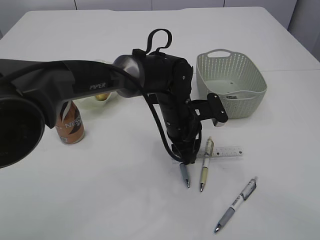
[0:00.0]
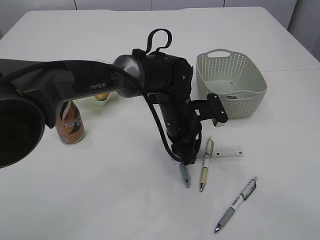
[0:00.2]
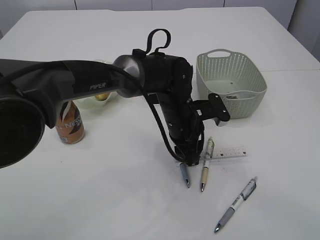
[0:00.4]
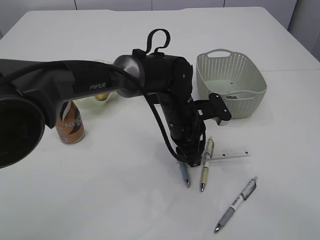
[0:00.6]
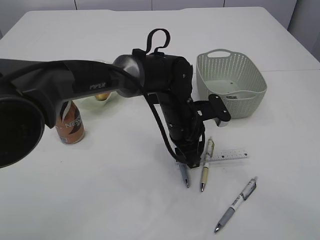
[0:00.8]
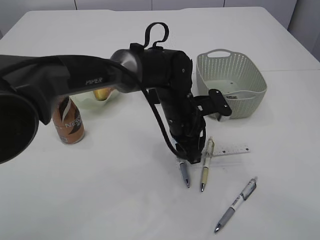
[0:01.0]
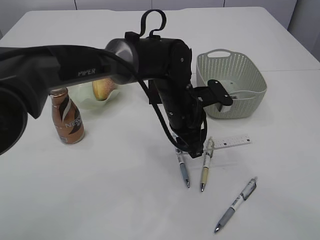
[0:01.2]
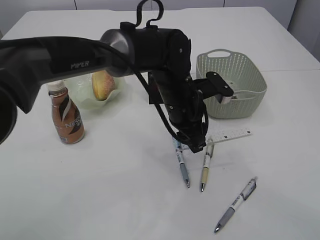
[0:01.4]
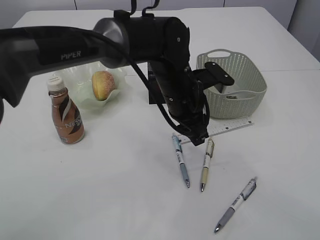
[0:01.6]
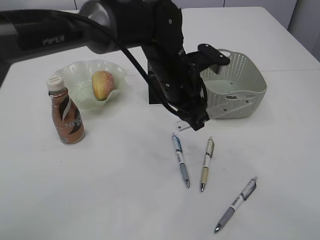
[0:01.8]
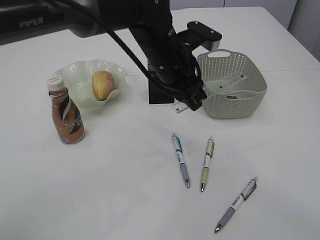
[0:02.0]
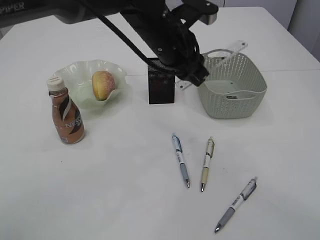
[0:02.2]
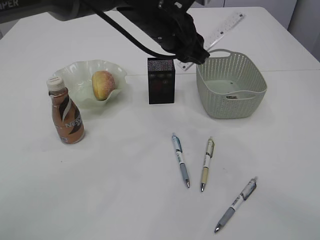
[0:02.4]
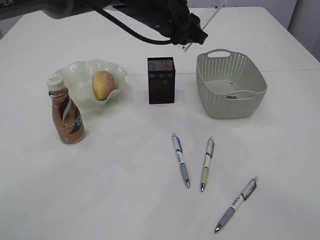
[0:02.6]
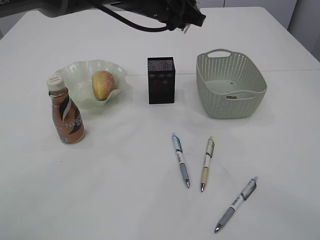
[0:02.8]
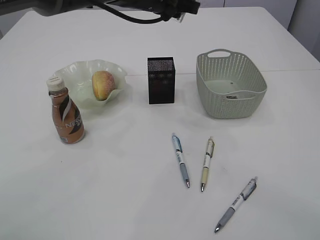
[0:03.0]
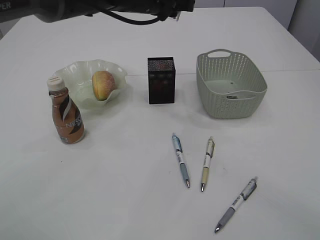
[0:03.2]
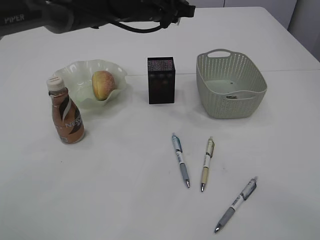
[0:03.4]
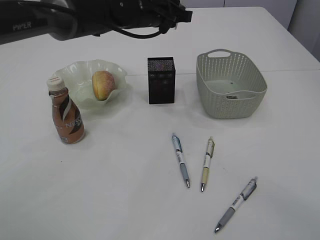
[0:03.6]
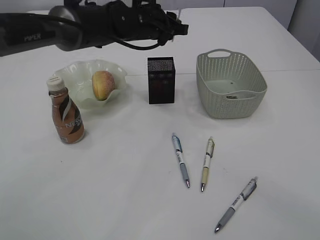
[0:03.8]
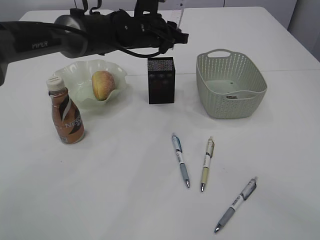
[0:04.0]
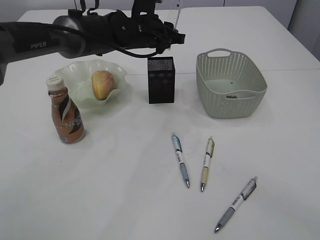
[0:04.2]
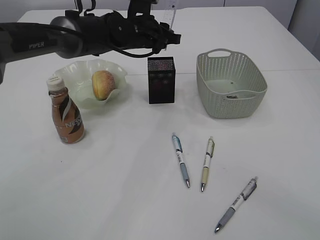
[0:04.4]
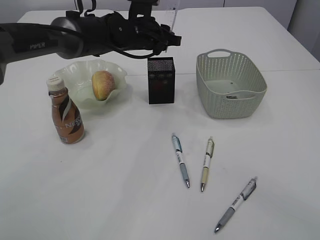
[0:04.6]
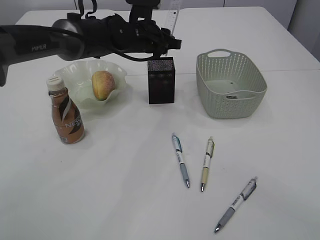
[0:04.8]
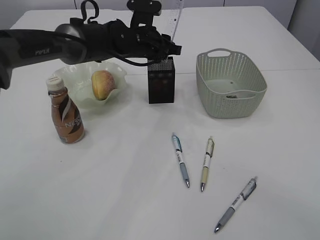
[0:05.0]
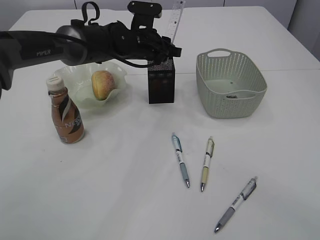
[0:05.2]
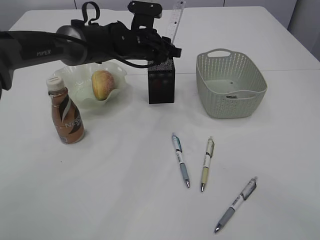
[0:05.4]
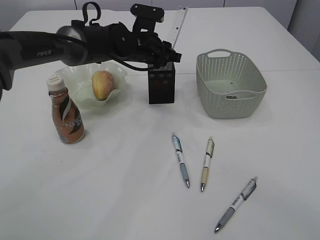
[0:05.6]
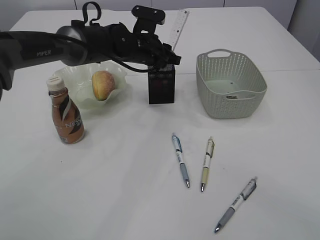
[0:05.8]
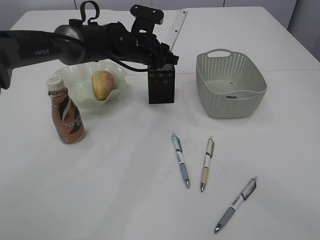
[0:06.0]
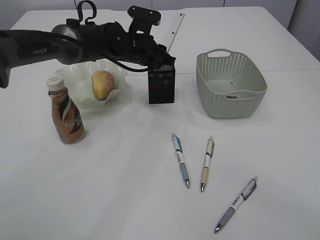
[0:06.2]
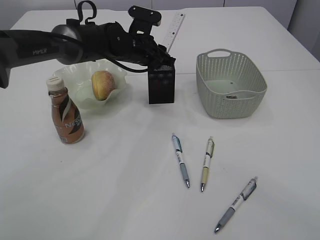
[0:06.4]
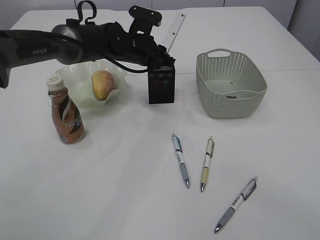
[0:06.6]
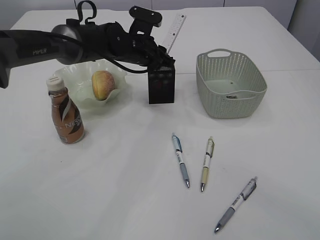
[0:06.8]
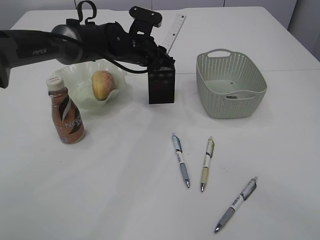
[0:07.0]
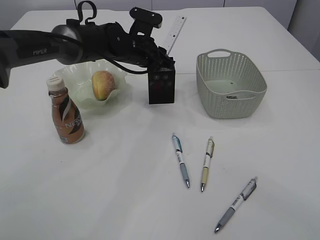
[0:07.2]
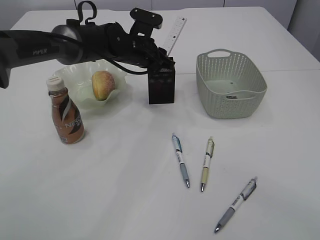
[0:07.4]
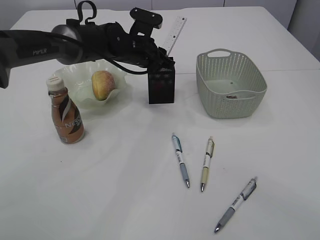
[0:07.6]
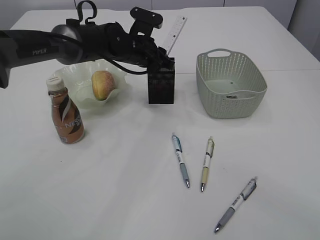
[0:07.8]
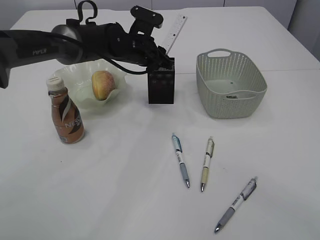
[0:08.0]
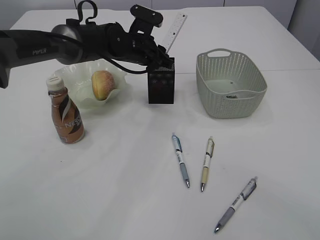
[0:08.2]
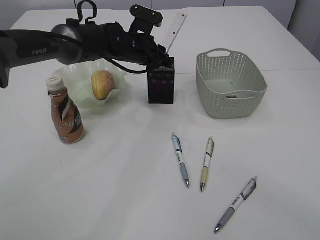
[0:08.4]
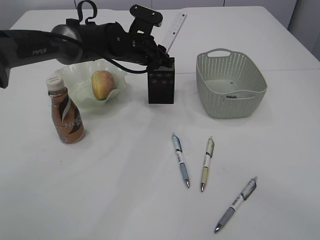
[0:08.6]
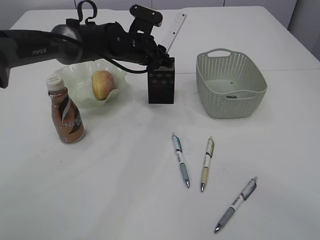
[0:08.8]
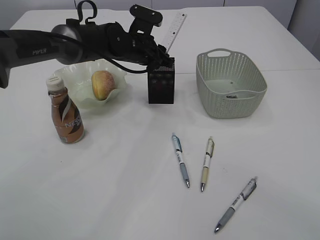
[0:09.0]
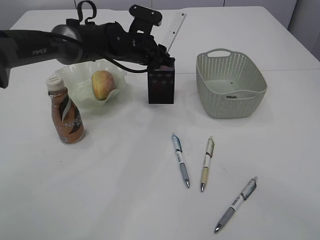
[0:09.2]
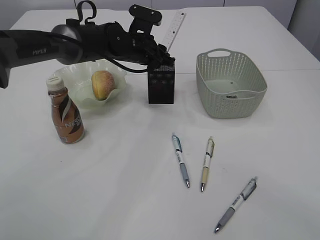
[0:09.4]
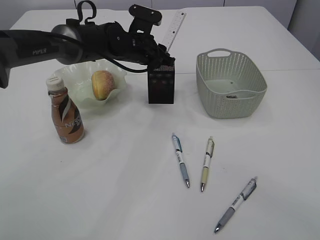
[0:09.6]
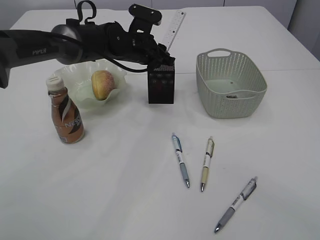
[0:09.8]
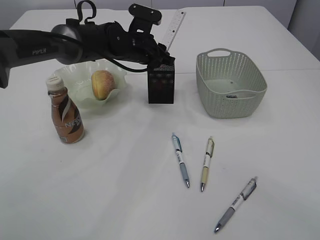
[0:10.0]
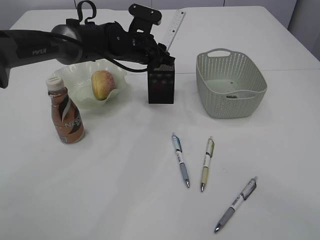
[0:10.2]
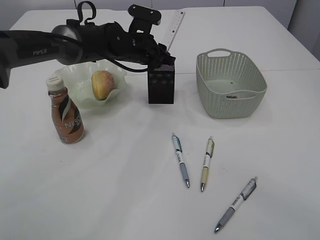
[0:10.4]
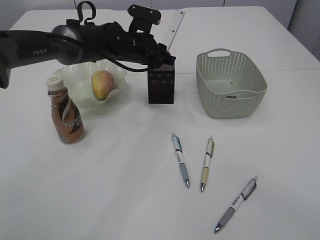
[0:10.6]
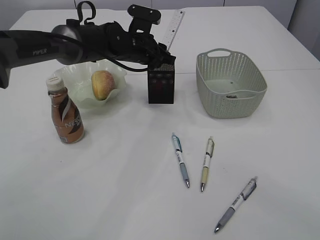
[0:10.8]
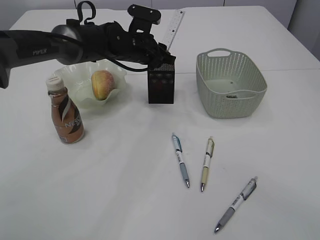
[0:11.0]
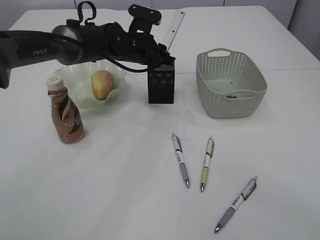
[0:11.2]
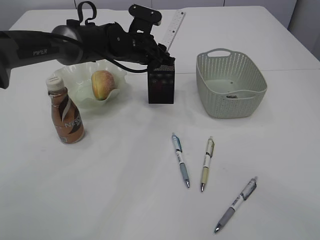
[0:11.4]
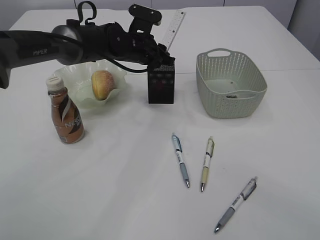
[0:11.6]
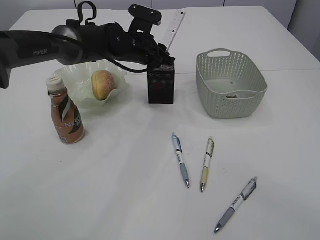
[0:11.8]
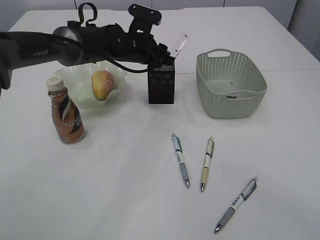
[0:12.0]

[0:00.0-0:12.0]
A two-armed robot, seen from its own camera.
0:00.0 to 0:01.6: The left gripper heads upward, covering some 5 cm.
0:01.6 to 0:03.0: The left gripper goes roughly 15 cm upward, forward and to the left.
0:03.0 to 0:04.4: The left gripper is displaced downward and forward by some 10 cm.
0:04.4 to 0:06.0: The grippers move only a little.
0:06.0 to 0:07.6: Both grippers stay put.
0:07.6 to 0:12.0: Both grippers stay put.

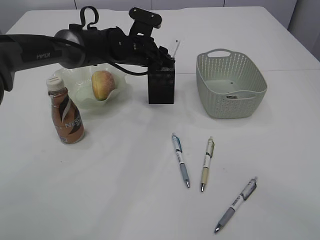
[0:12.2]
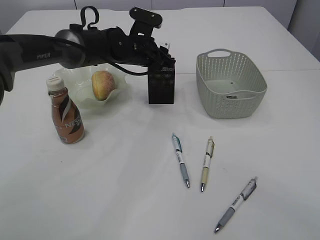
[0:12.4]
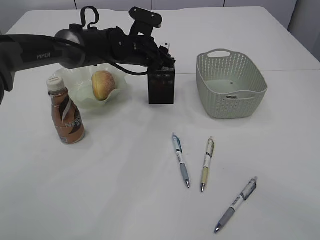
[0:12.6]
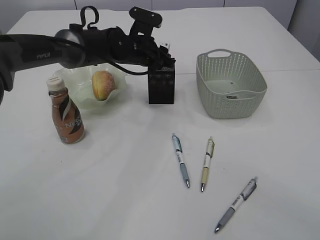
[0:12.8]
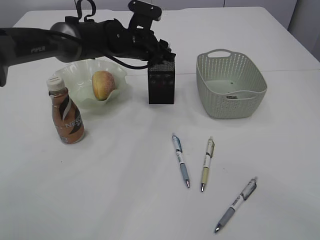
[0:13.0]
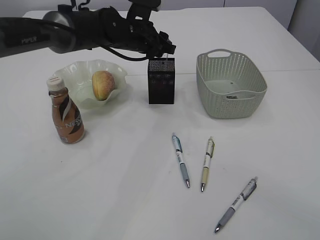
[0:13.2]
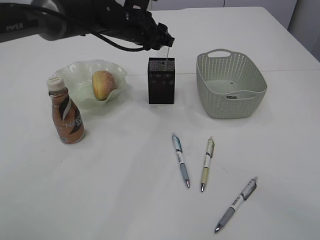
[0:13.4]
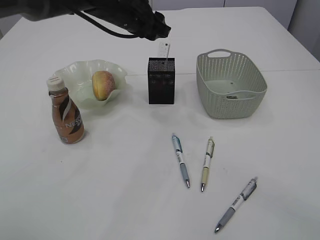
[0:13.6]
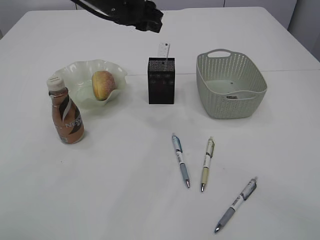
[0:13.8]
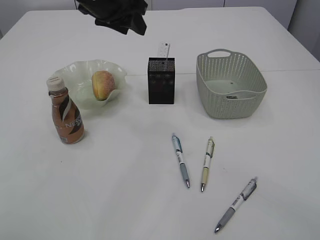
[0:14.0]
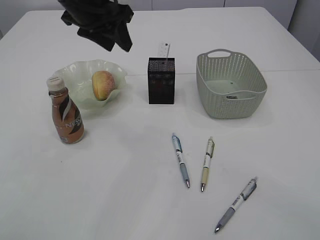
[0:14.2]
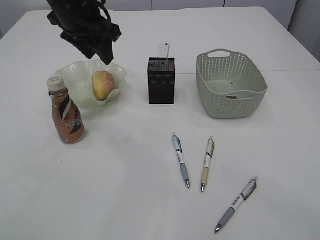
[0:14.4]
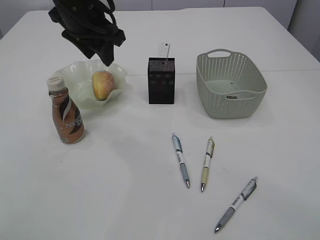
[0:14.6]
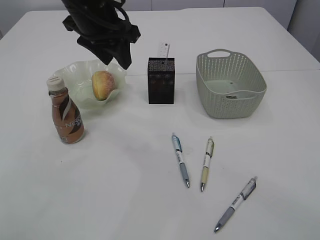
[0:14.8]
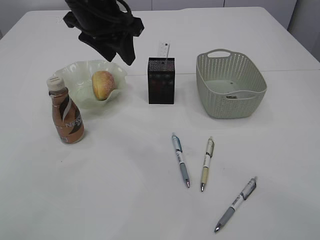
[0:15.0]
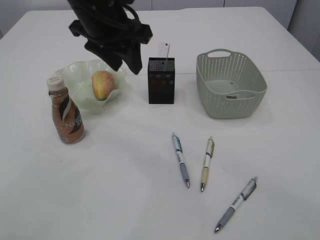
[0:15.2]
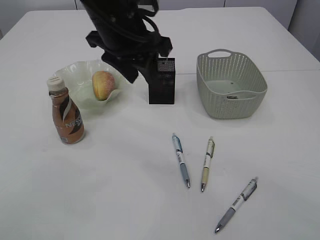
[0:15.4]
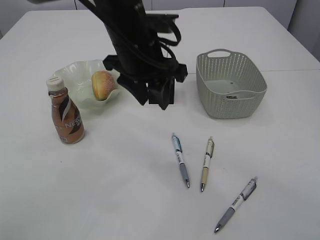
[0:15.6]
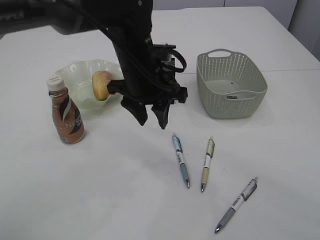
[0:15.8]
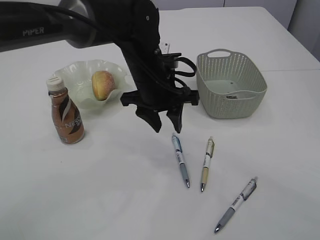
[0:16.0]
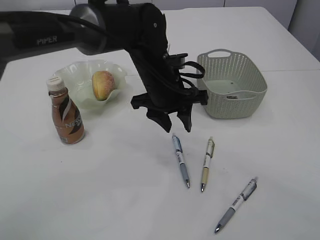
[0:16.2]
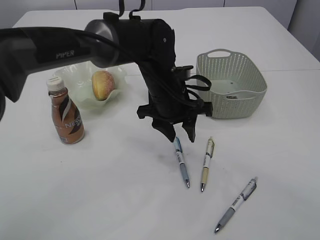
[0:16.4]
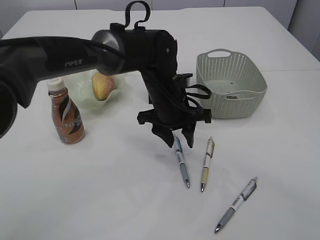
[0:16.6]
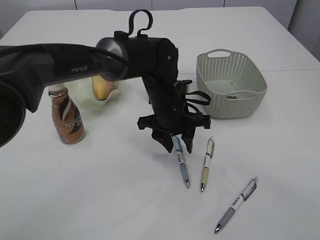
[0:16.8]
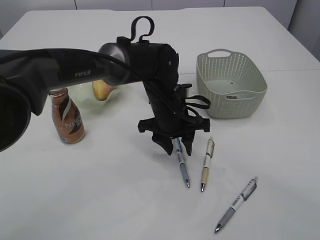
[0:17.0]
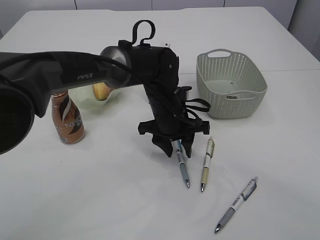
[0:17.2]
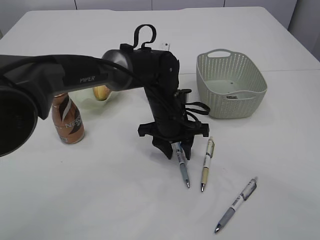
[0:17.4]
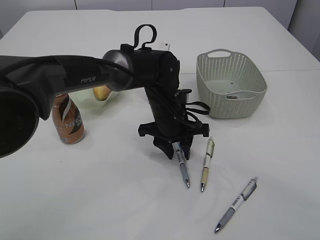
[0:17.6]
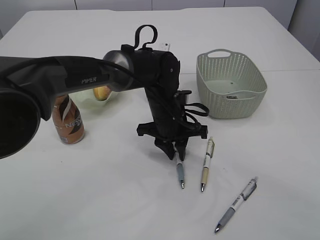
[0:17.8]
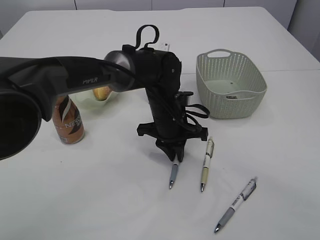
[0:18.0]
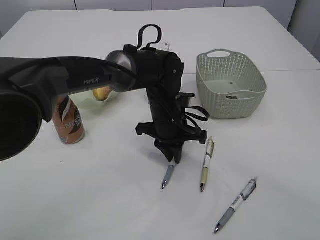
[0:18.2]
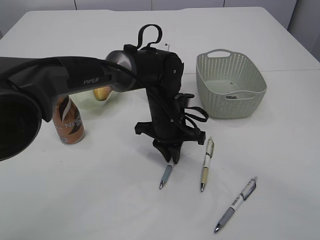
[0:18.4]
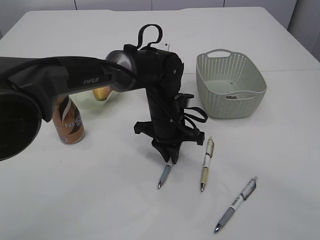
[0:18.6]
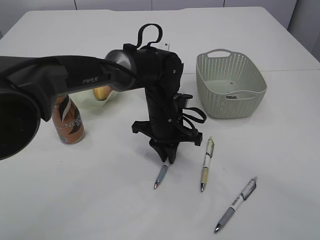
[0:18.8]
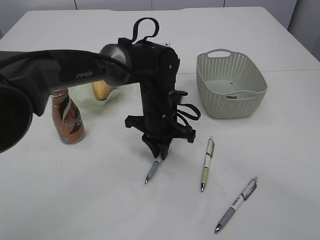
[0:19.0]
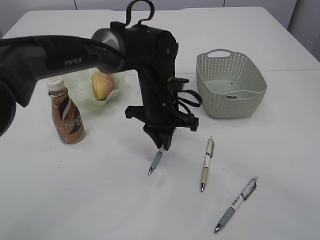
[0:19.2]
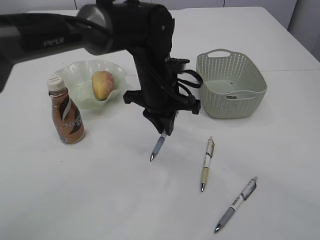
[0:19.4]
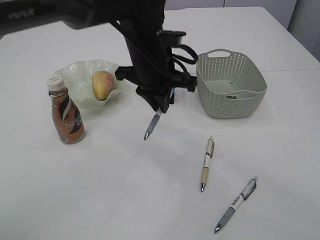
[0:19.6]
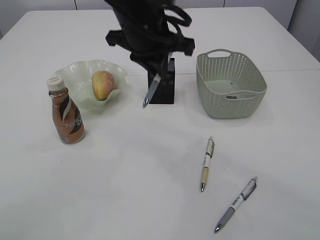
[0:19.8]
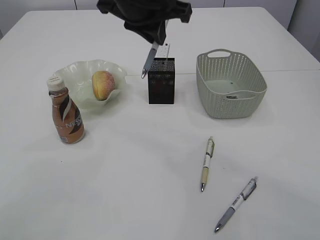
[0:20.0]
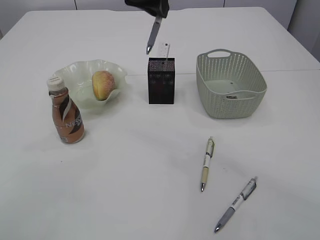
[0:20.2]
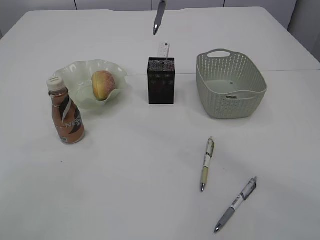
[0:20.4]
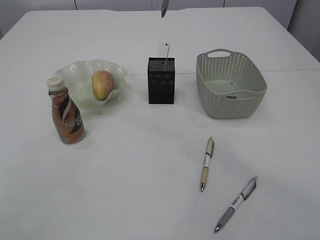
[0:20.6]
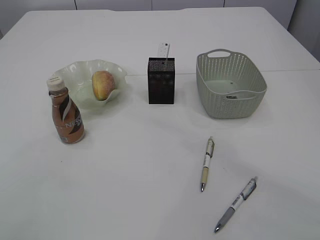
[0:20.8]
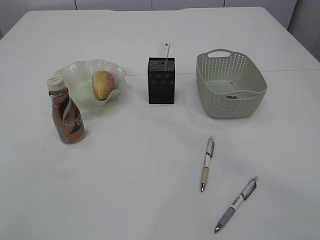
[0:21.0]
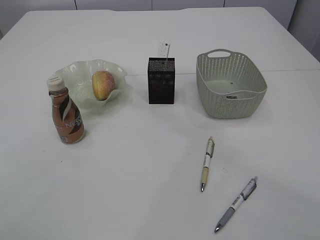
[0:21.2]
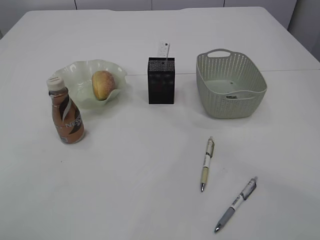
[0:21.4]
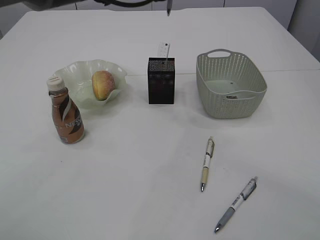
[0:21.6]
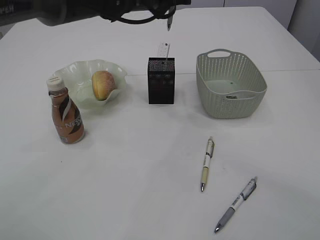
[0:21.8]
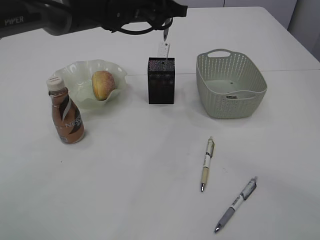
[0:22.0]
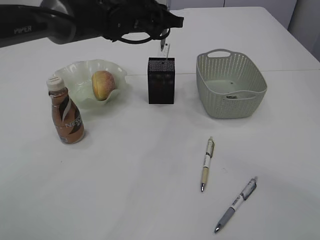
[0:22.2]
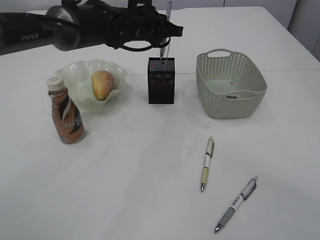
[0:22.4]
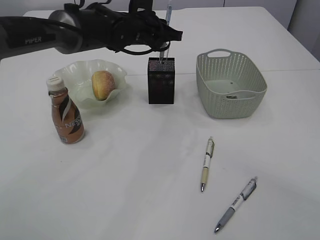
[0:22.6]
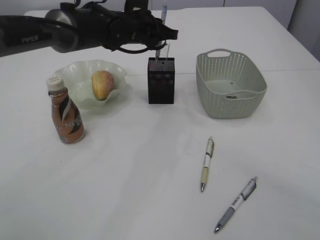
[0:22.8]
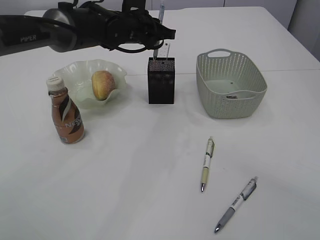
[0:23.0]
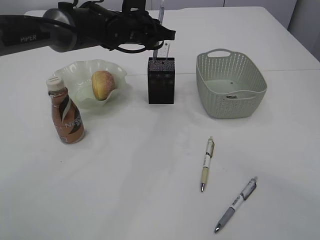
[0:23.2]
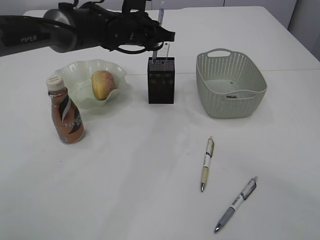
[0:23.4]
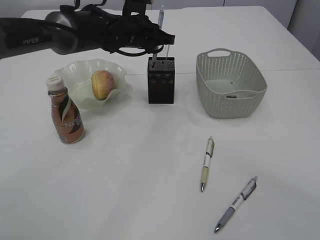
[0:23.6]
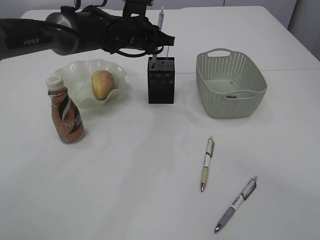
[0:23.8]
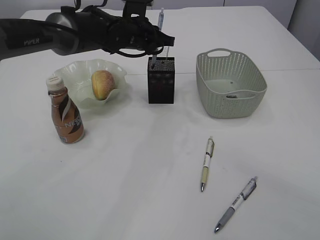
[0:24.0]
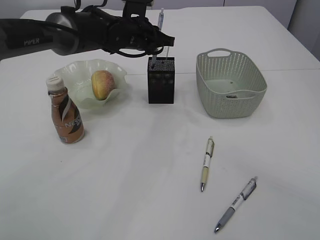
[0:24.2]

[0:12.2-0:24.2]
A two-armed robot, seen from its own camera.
Step, 0:13.8 to 0:19.4: Pick up the pen with left arm.
0:12.2 to 0:13.8: The left gripper goes about 10 cm upward.
0:13.8 to 0:15.2: The left gripper goes approximately 10 cm backward.
0:15.2 to 0:16.6: The left gripper shifts approximately 20 cm downward and to the right, while the right gripper moves approximately 5 cm.
0:16.6 to 0:18.2: The left gripper closes up.
0:18.2 to 0:19.8: The left gripper heads upward, covering some 20 cm.
0:19.8 to 0:21.2: The left gripper goes approximately 10 cm upward and forward.
0:21.2 to 0:22.6: The left gripper heads downward and forward, covering some 15 cm.
0:22.6 to 0:24.2: The grippers stay close to where they were, moving slightly.
